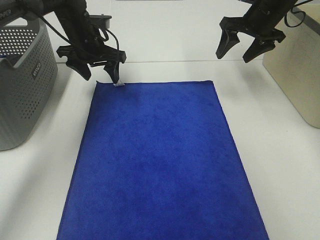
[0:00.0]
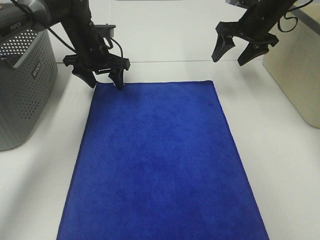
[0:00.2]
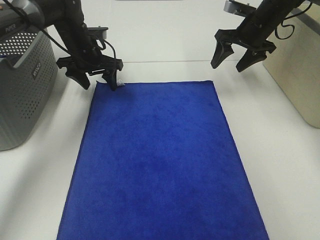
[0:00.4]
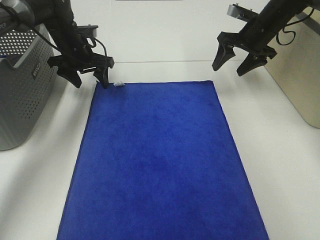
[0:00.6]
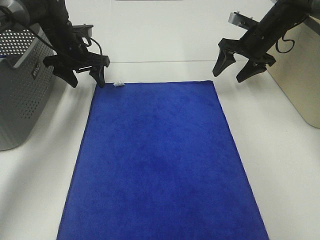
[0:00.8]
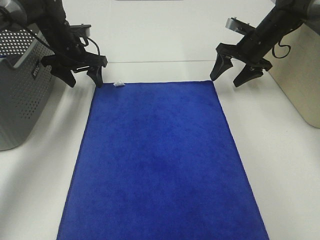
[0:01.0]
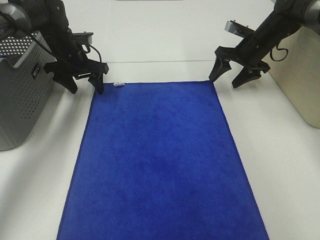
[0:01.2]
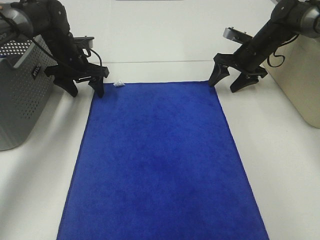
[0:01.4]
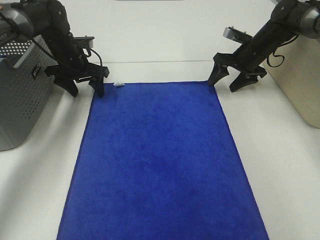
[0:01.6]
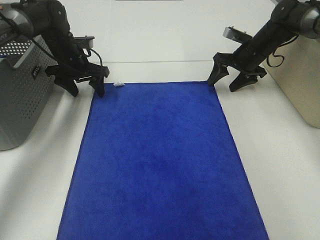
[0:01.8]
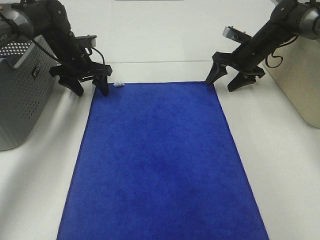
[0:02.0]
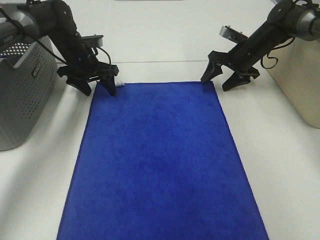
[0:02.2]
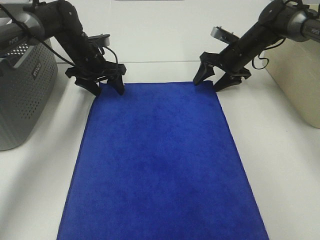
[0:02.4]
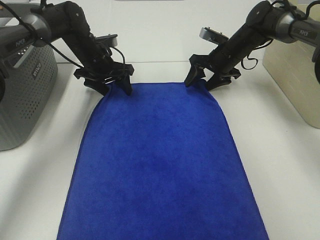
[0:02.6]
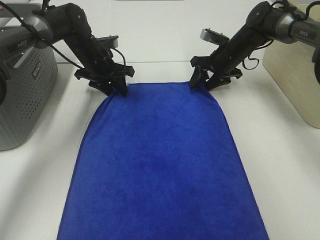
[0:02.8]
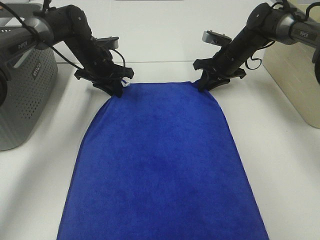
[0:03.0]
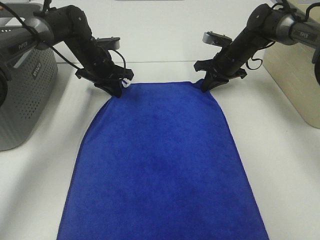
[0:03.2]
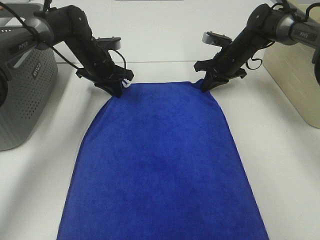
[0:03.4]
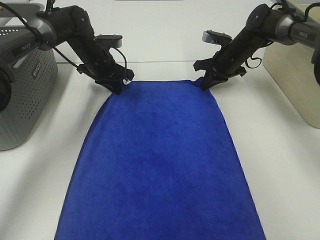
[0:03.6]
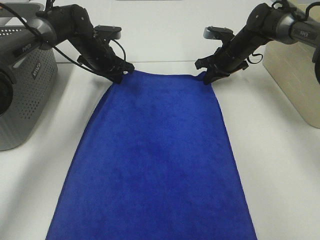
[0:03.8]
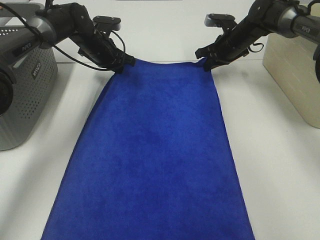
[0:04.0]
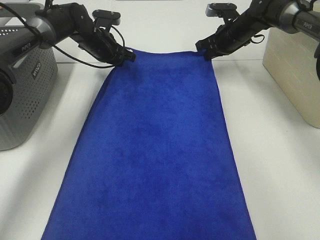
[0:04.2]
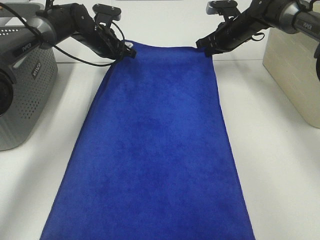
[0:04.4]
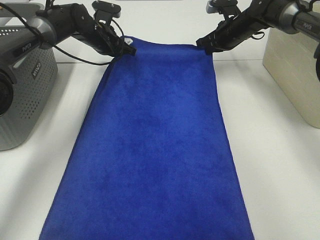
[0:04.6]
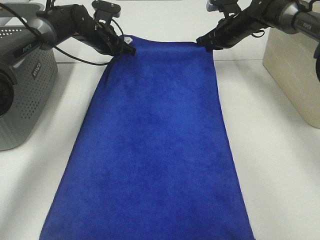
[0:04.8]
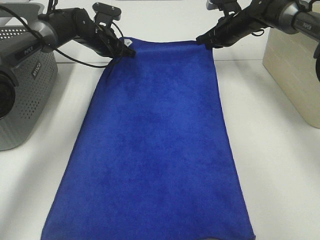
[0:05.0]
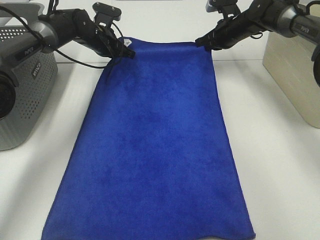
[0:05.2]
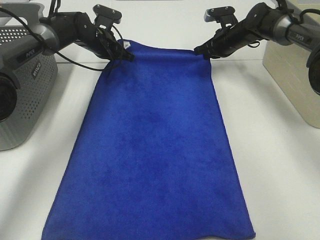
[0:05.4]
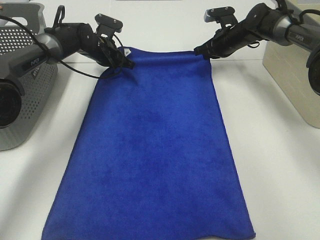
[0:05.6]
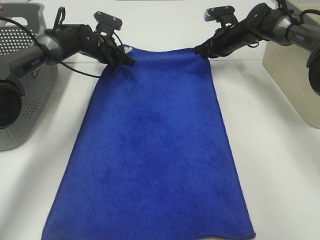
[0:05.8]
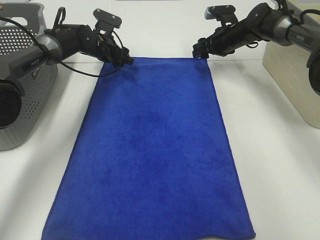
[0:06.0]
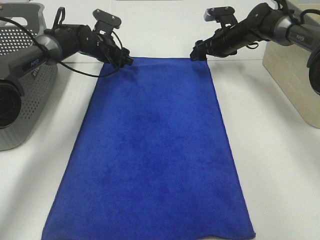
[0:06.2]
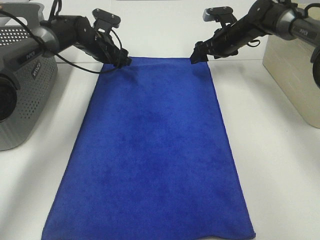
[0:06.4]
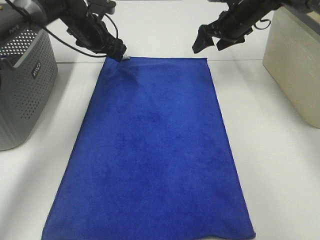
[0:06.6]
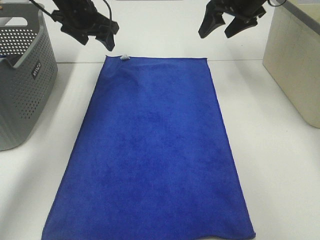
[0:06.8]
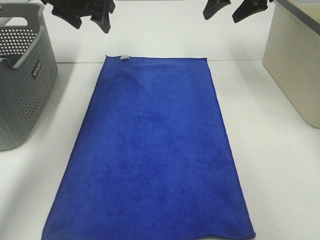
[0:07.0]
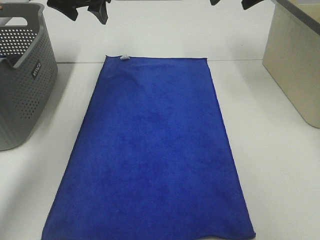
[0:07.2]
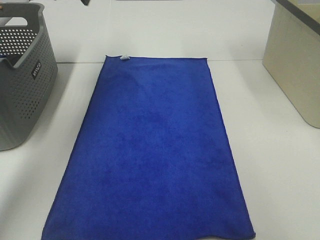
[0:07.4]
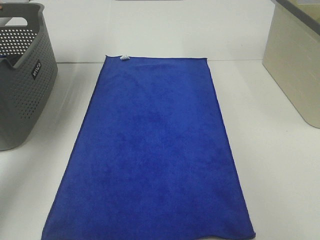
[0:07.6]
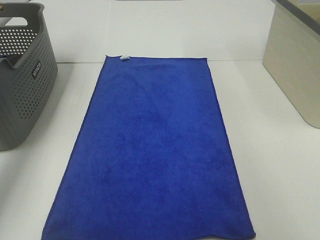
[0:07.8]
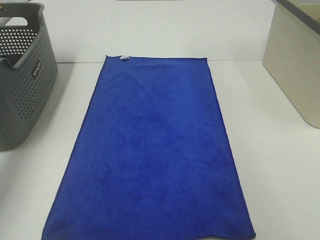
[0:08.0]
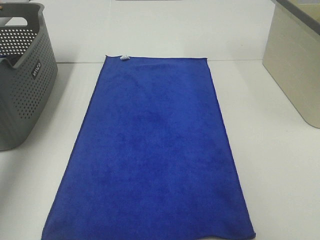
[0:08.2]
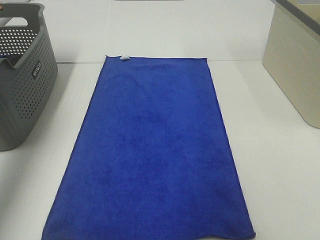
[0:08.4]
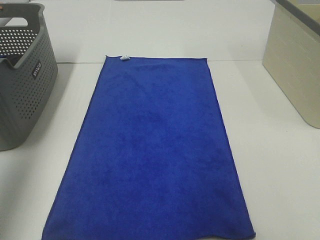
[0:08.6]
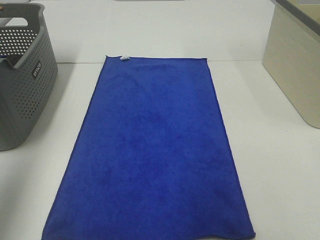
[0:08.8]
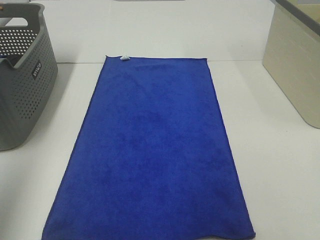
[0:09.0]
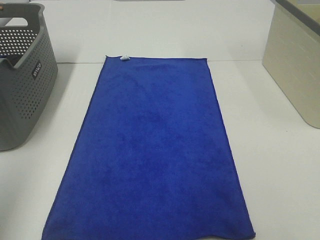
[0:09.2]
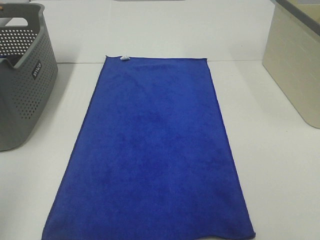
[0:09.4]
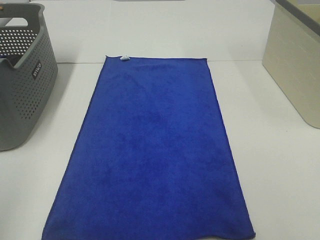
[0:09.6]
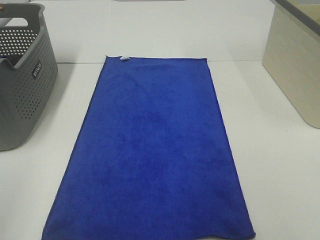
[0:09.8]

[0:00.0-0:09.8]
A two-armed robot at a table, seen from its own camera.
Task of the whole recording: Remove the towel and place it.
0:00.0 to 0:01.4: The left gripper travels downward and to the left by roughly 10 cm. Meanwhile the right gripper travels downward by about 10 cm.
0:01.4 to 0:02.8: The left gripper travels to the right by approximately 5 cm. Meanwhile the right gripper goes roughly 5 cm to the left.
0:02.8 to 0:04.2: The left gripper closes its fingers, while the right gripper shifts by about 5 cm, and closes up.
0:04.2 to 0:05.6: There are only small adjustments of the grippers.
0:05.6 to 0:07.0: The right gripper moves upward and backward, about 20 cm, and opens up; the left gripper heads upward, covering roughly 20 cm, and opens.
0:07.0 to 0:08.4: The right gripper shifts approximately 25 cm backward and to the right; the left gripper shifts some 30 cm backward, to the left and upward.
0:08.4 to 0:09.8: The left gripper moves backward, approximately 30 cm.

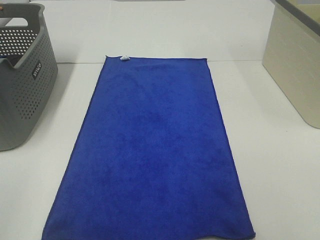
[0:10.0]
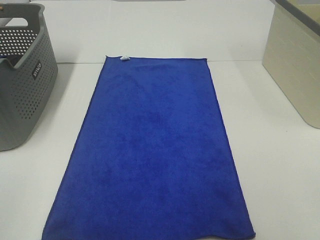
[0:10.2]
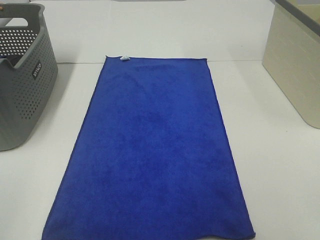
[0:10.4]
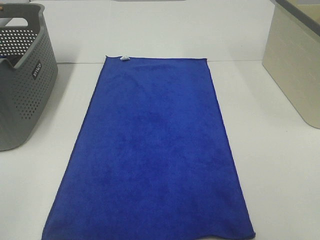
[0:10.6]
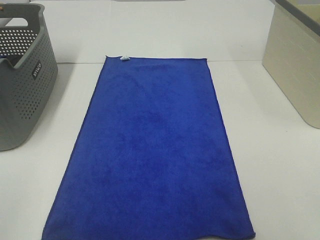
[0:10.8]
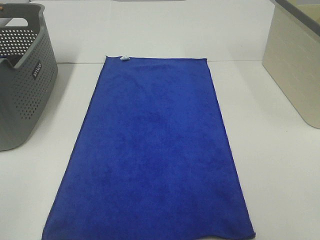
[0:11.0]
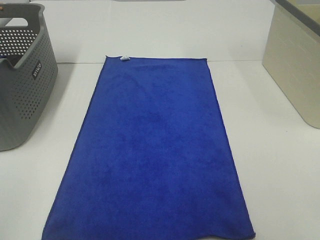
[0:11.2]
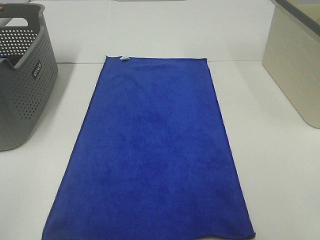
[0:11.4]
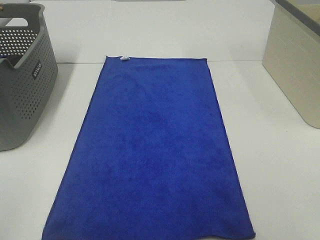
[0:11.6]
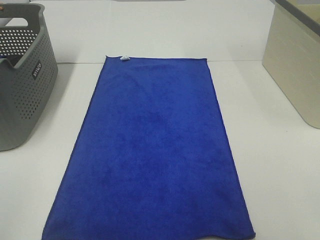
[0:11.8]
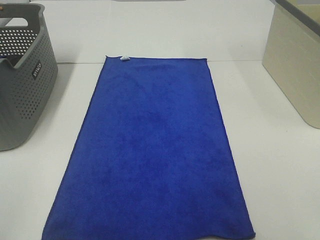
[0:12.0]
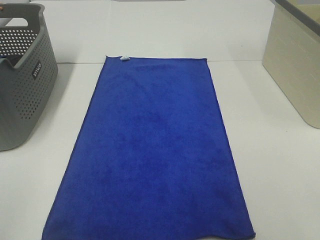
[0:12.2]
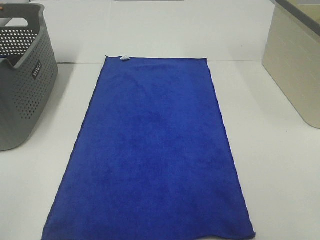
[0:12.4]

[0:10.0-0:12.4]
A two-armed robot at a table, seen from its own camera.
Task of the whole recording: Remove the towel and place it.
0:11.2 to 0:12.4: Both grippers stay about where they are.

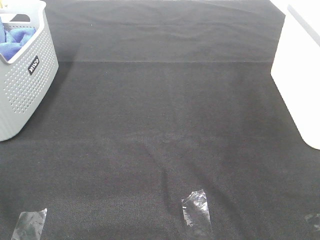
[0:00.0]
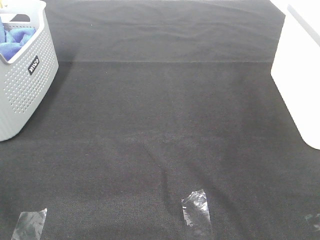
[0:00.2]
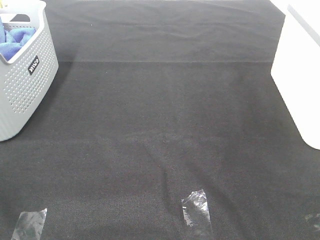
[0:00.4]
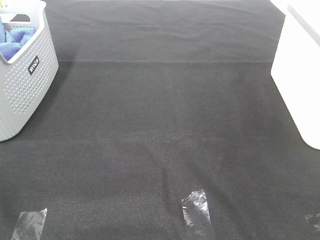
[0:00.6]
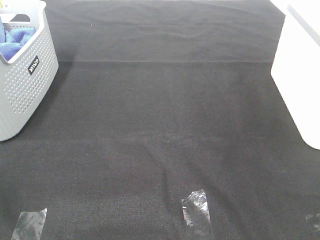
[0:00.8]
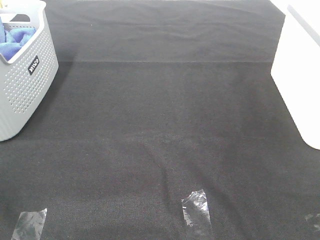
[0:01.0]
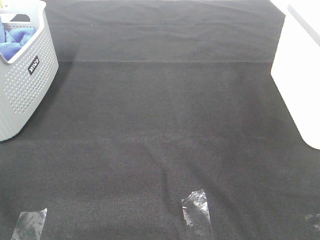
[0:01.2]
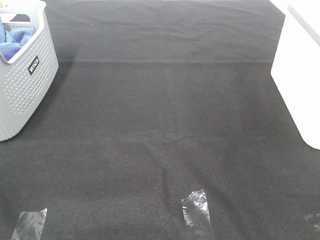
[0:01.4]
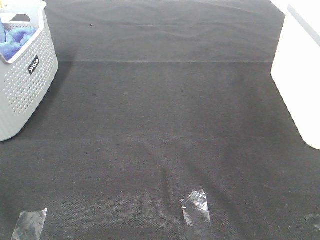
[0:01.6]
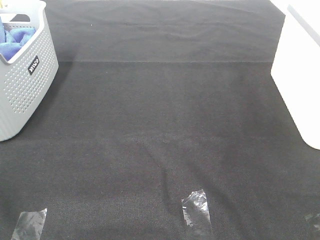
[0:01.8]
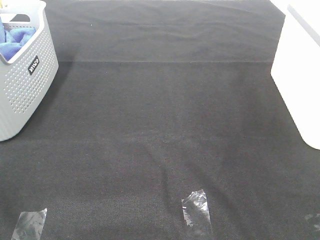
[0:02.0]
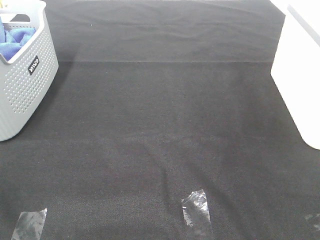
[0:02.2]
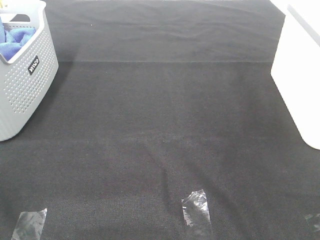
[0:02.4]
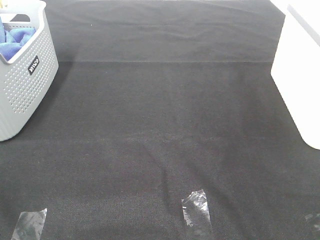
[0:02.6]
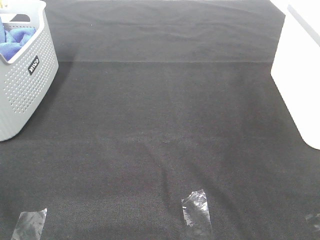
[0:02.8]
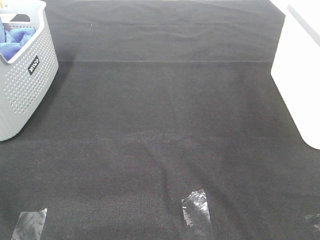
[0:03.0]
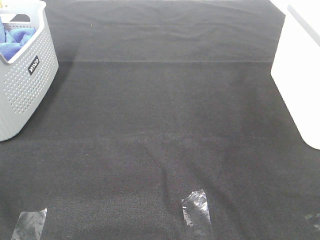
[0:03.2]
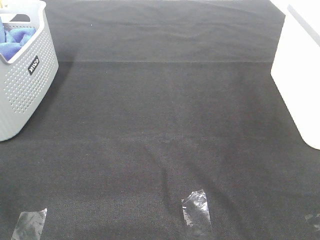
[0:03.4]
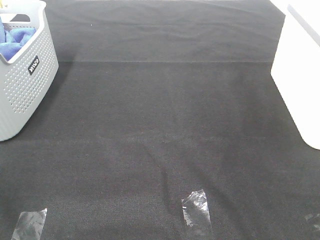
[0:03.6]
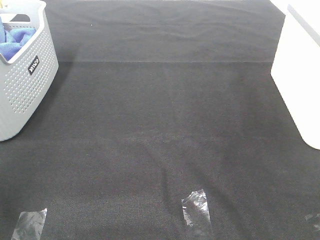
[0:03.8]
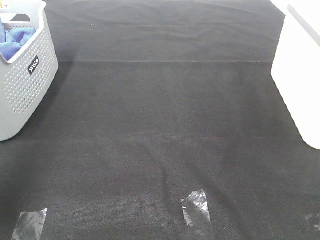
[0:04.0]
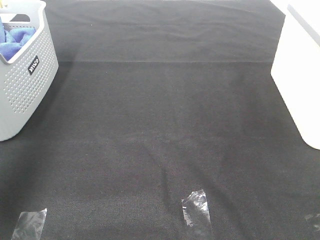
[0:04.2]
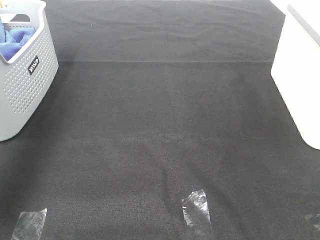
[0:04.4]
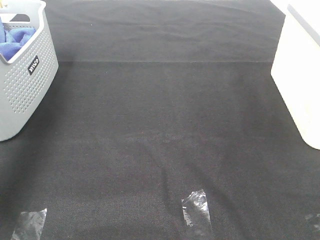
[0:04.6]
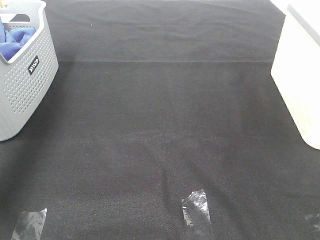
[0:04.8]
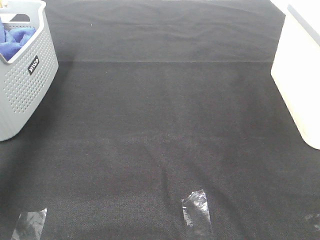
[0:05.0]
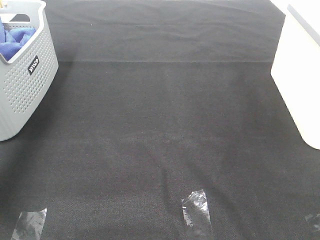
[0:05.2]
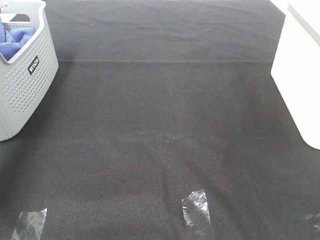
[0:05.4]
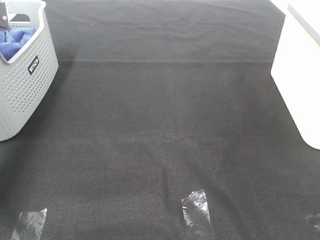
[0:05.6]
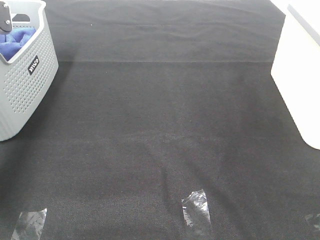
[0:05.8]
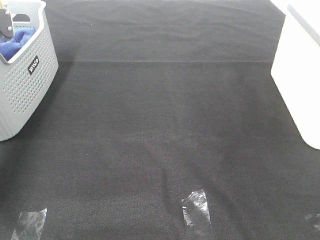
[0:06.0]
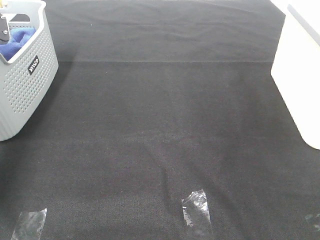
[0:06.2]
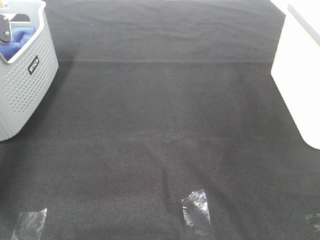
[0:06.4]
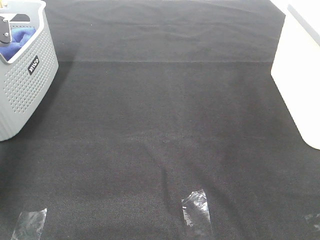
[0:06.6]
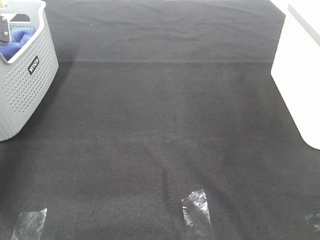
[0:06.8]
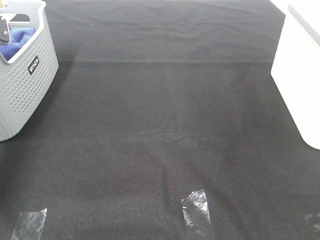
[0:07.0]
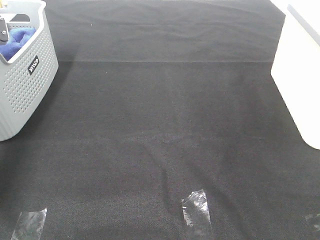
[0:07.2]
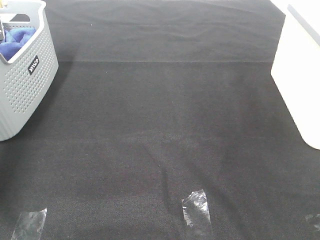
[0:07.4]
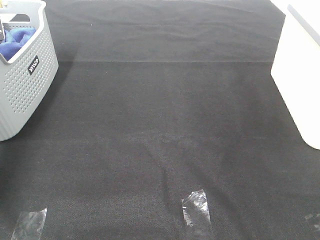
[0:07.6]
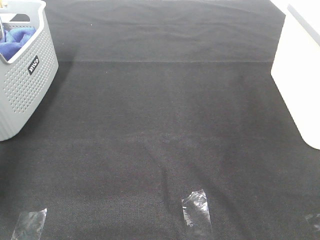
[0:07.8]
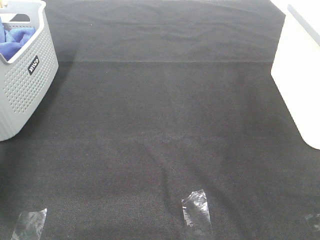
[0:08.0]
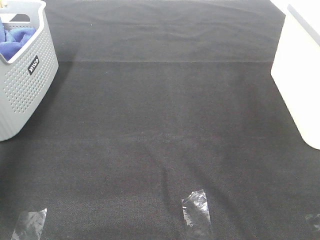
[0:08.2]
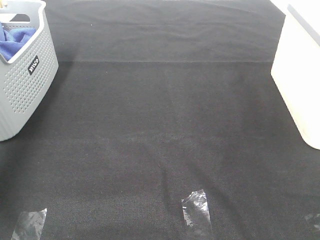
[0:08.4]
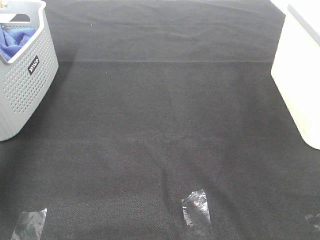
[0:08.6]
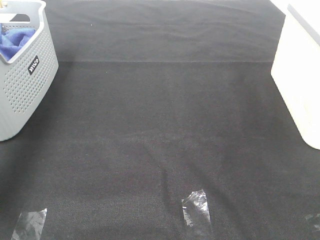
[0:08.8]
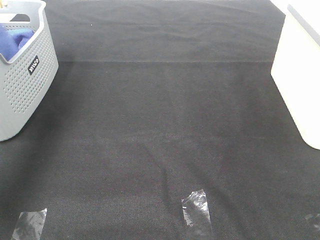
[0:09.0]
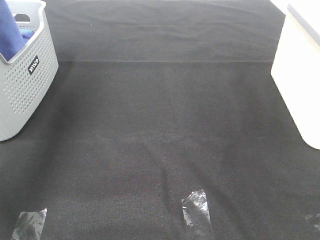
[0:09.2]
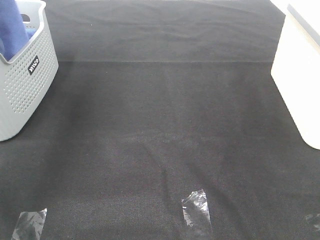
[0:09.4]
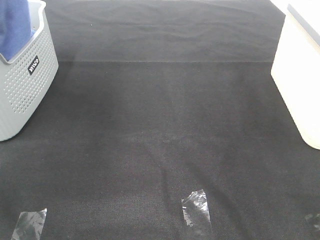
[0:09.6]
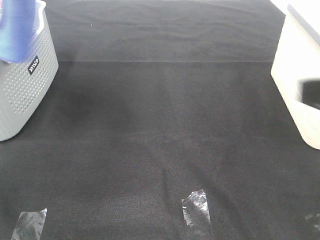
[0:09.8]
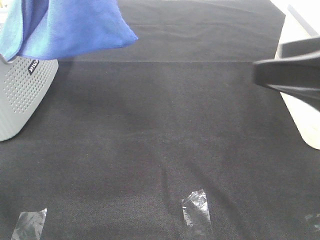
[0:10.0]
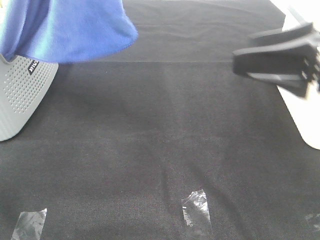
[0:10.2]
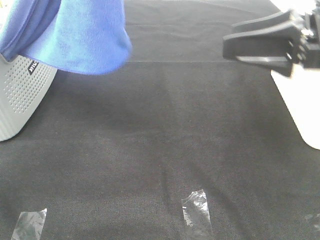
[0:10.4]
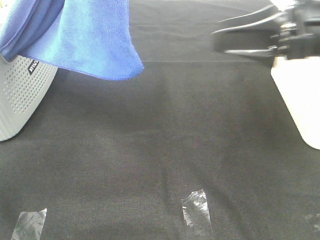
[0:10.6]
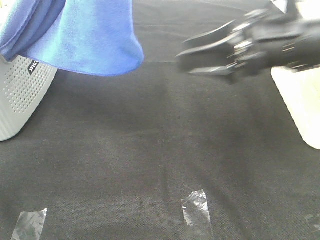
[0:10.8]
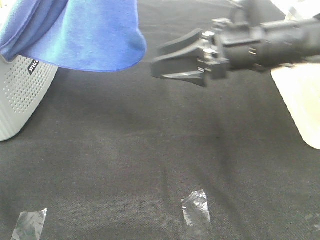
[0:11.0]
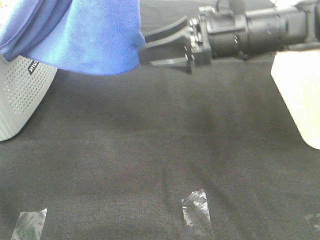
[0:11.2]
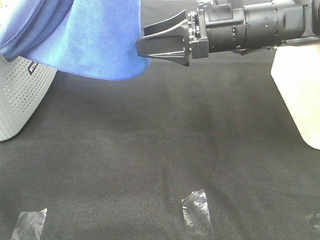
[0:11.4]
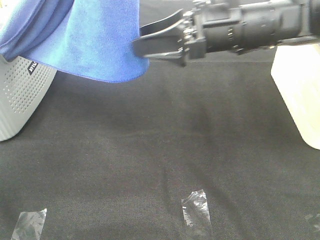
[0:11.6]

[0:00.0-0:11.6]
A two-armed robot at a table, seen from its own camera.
Task of the whole recording: Remove the towel and place it.
0:00.0 to 0:02.8: Both grippers stay about where they are.
0:02.8 to 0:04.4: The left gripper is displaced forward and upward by approximately 35 cm.
0:04.4 to 0:05.8: The left gripper travels downward and forward by roughly 30 cm.
0:07.2 to 0:08.8: The left gripper moves upward and backward, roughly 25 cm, and closes its fingers.
0:08.8 to 0:10.2: The left gripper travels to the right and backward by approximately 25 cm. Meanwhile the right gripper moves forward, roughly 20 cm.
0:10.2 to 0:11.6: The right gripper heads forward and to the left, covering about 15 cm.
